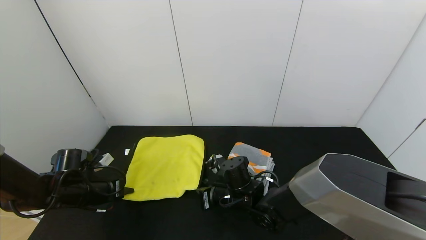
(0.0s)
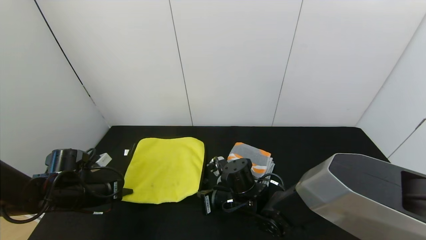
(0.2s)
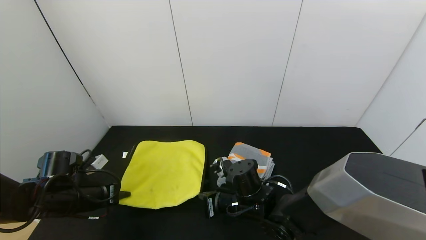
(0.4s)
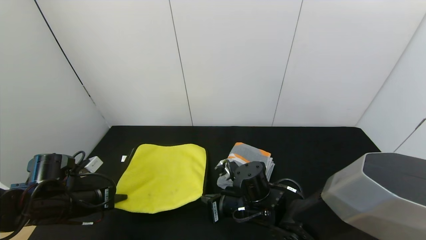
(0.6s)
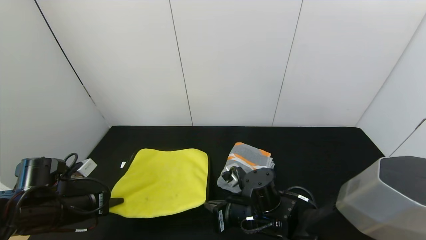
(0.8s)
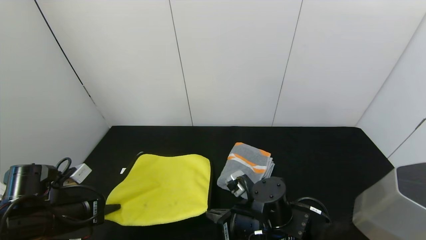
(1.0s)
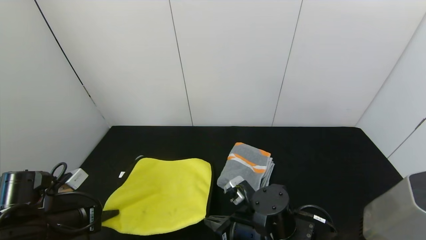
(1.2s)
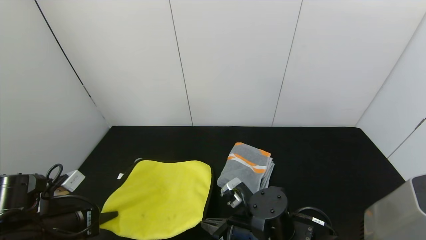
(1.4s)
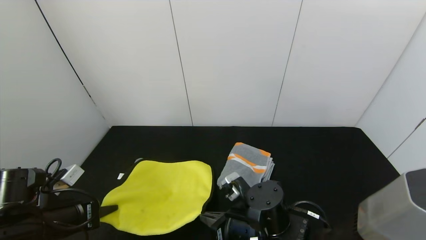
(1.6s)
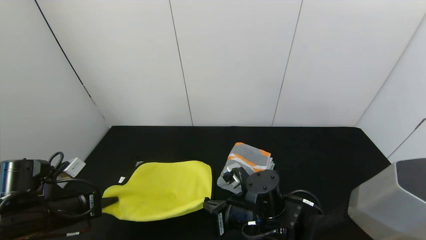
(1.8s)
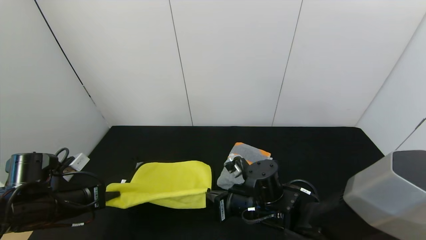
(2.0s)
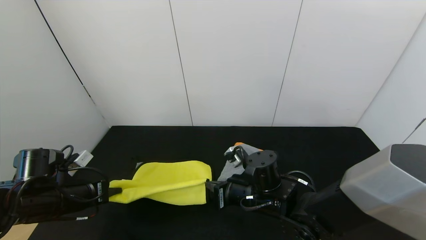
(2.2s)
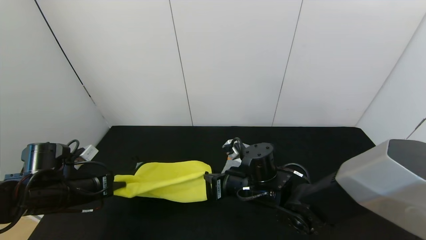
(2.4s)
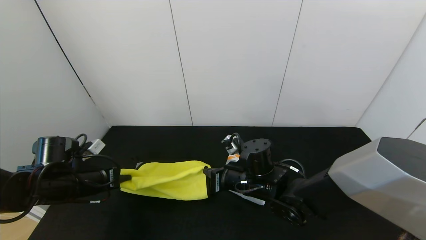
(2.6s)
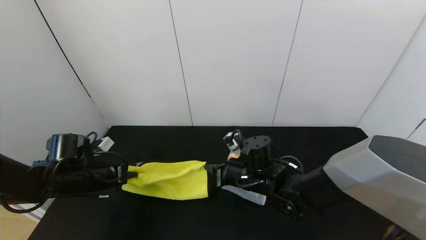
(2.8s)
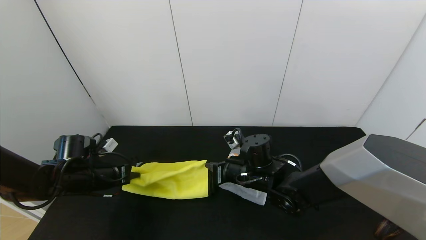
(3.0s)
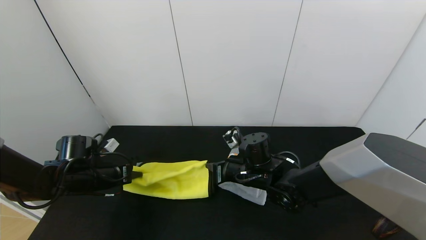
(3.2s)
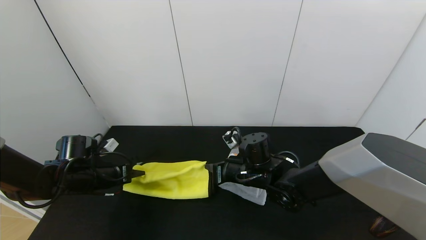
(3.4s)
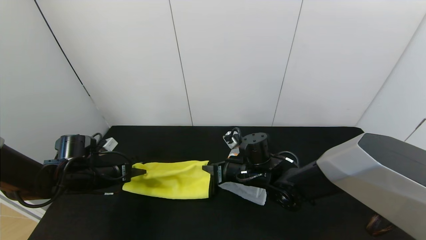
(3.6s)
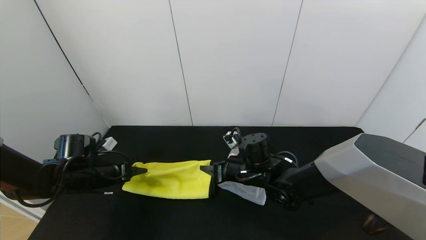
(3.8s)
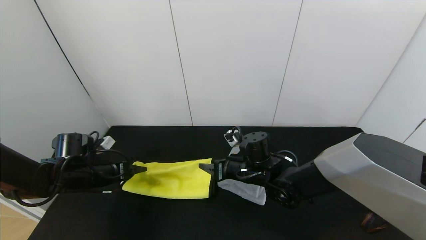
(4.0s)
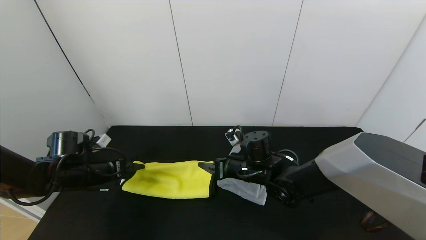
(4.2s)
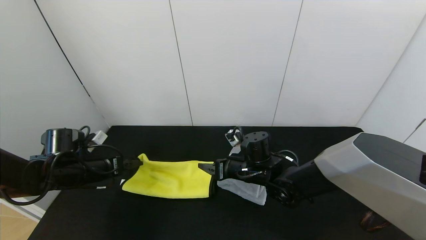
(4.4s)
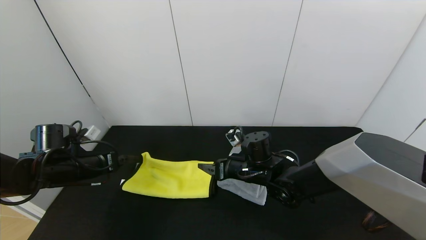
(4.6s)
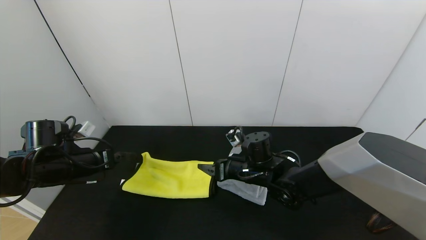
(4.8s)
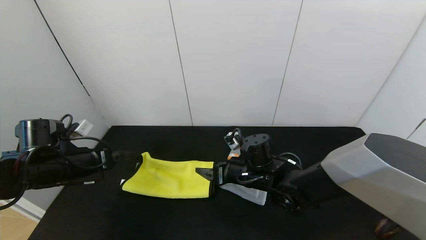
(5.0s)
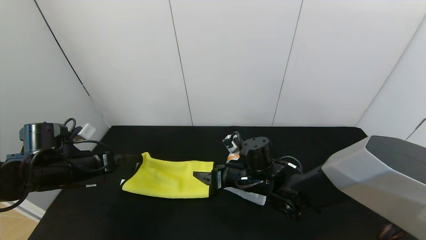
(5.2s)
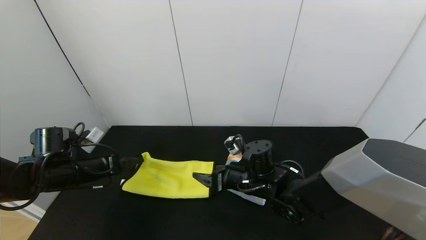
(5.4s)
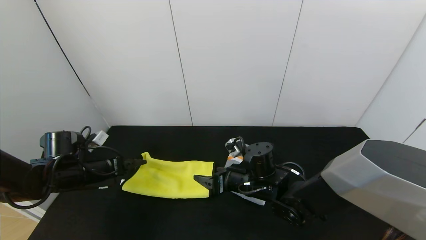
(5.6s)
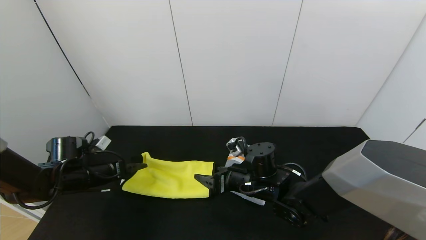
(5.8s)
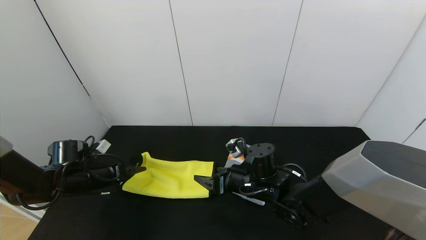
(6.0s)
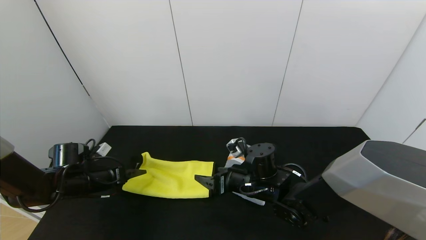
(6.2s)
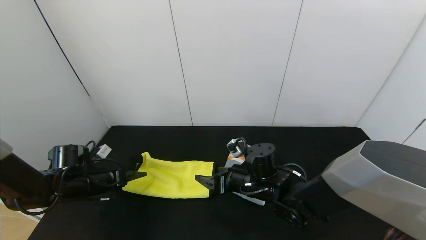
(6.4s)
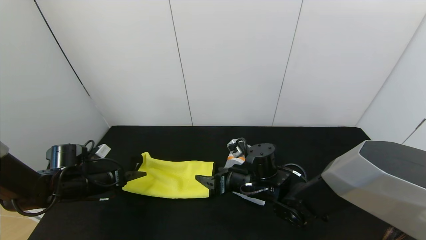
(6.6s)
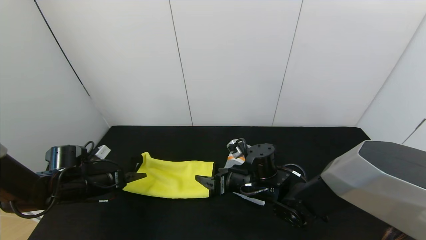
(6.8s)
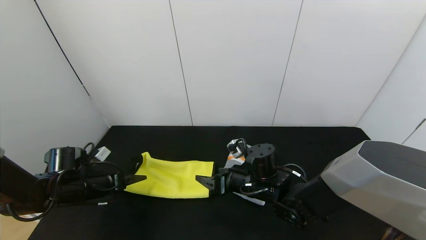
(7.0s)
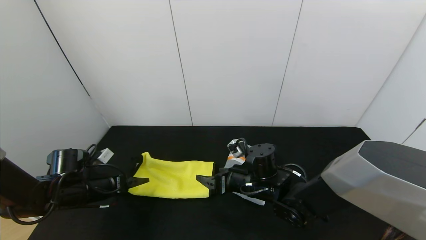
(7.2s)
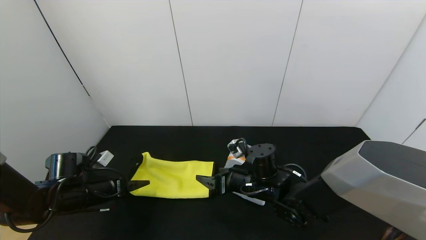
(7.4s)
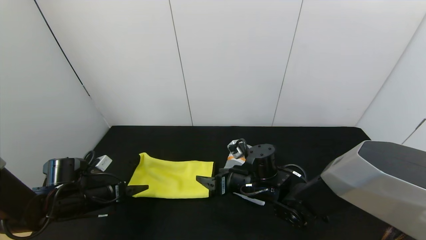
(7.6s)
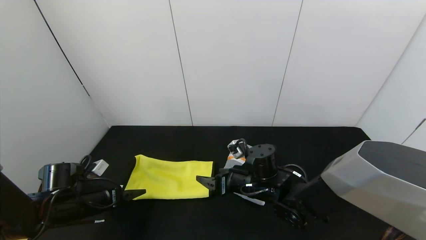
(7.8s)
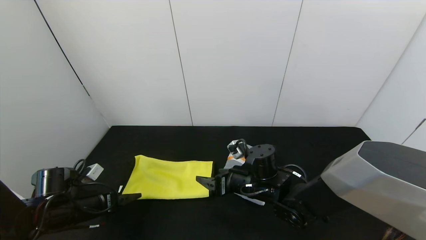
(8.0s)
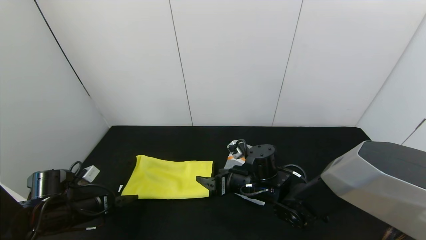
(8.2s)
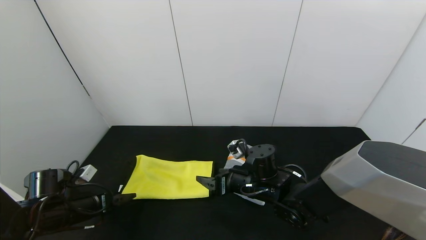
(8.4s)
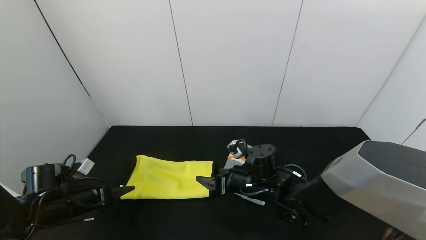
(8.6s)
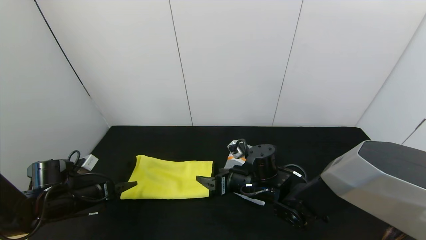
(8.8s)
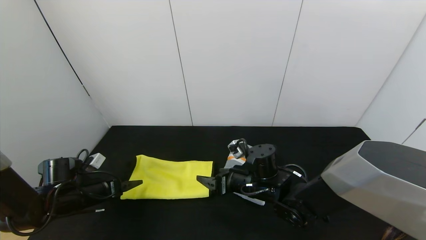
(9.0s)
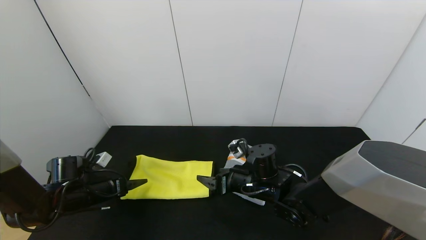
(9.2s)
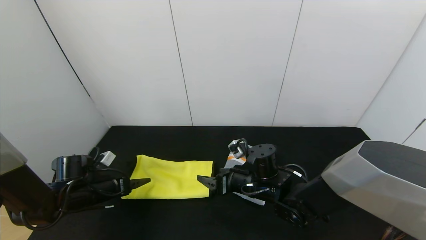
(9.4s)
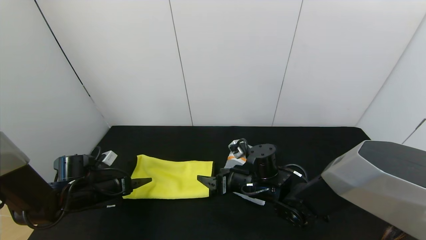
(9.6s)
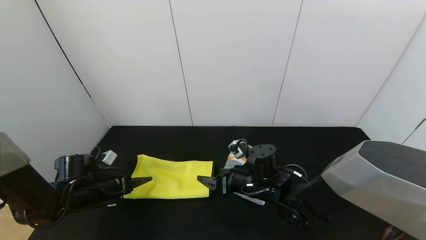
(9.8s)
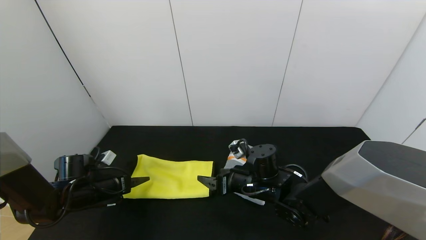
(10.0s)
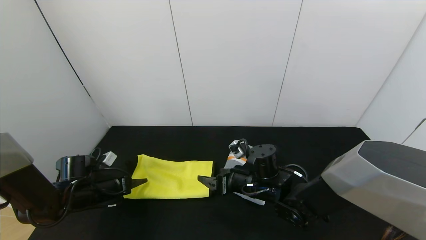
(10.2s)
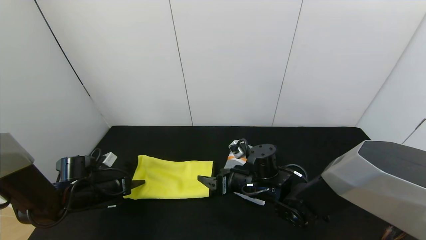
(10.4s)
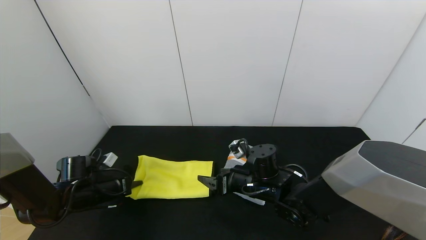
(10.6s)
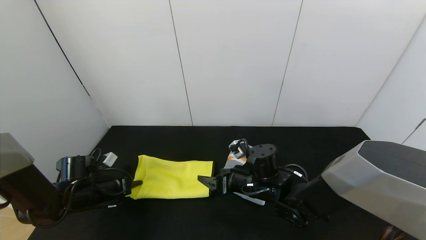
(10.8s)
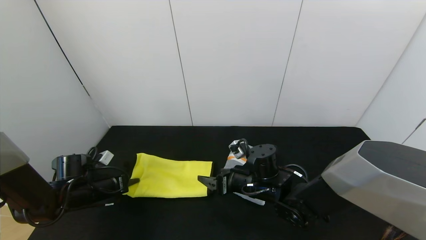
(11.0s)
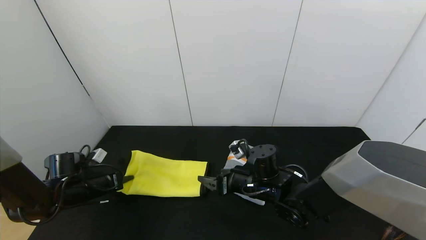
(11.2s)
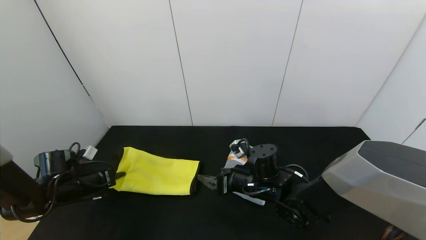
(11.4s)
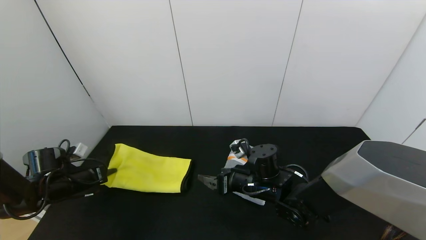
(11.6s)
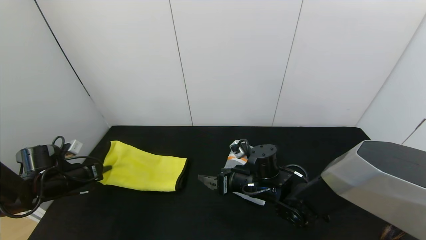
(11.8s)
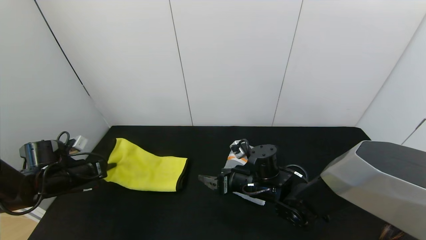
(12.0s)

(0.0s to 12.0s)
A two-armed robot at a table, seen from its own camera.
Task of the whole recording: Use the gripper to fold the yellow towel and grey towel in half twice,then put the yellow towel on the grey towel.
Step, 0.0s - 4.4s: Fold the yellow towel from right to left with right gripper.
Step, 0.0s - 4.4s: Fold the yellow towel upwards with the right gripper.
0.0s - 1.6s: The right gripper heads backward, covering about 10 cm. The left gripper travels backward and upward by some 10 cm.
1.6s - 3.0s: The two grippers go about 10 cm forward.
3.0s - 4.4s: The left gripper opens. The right gripper opens its fingers.
4.4s - 6.0s: There are only small adjustments of the grippers.
6.0s - 7.6s: The left gripper changes place by some 5 cm.
7.6s - 9.0s: The grippers stay close to where they were, moving slightly.
9.0s - 10.4s: The left gripper closes up.
10.4s - 12.0s: The left gripper is displaced to the left by some 5 cm, and closes its fingers.

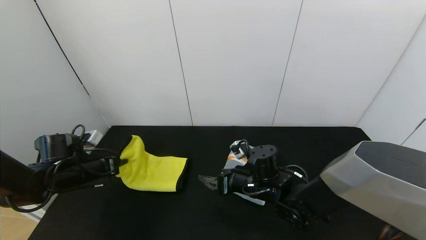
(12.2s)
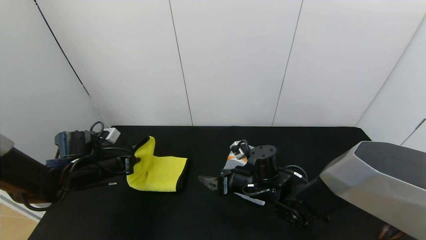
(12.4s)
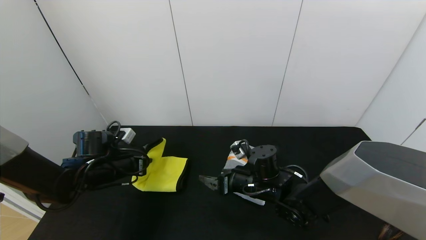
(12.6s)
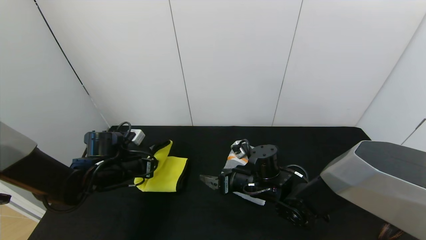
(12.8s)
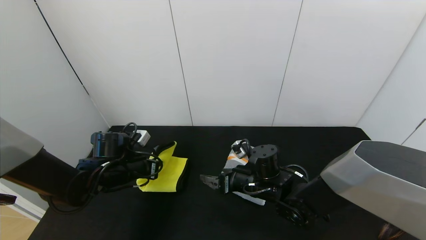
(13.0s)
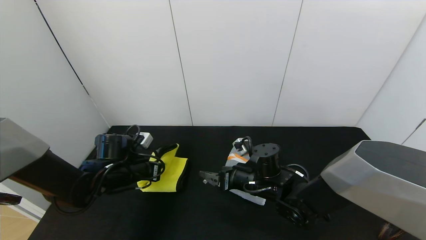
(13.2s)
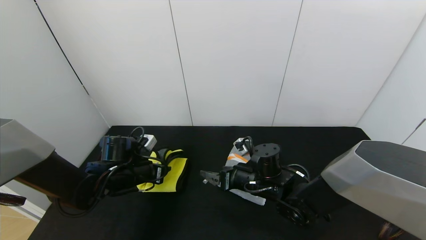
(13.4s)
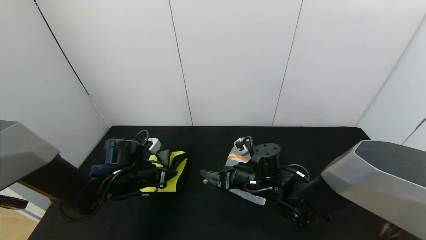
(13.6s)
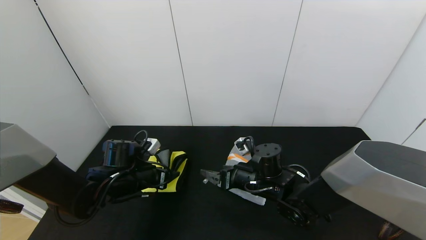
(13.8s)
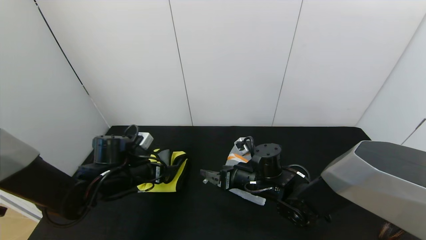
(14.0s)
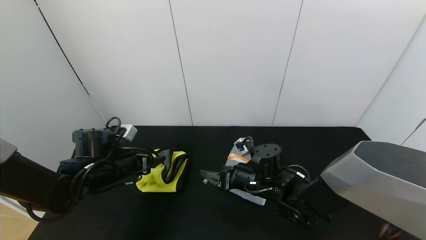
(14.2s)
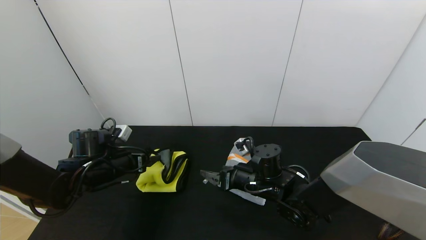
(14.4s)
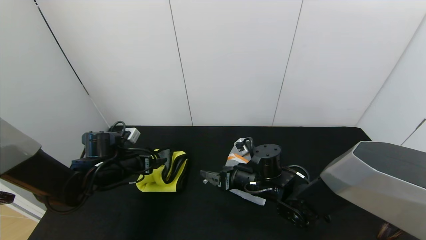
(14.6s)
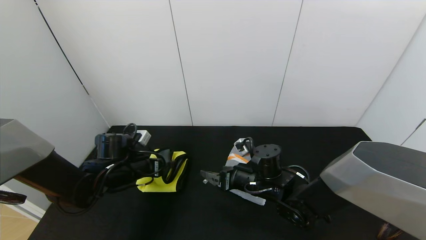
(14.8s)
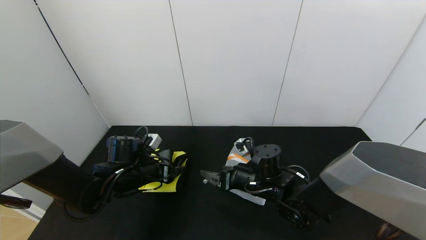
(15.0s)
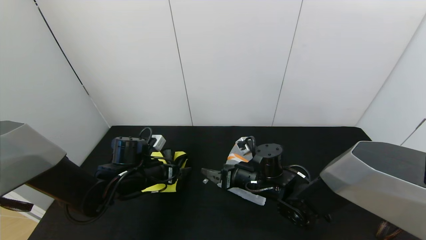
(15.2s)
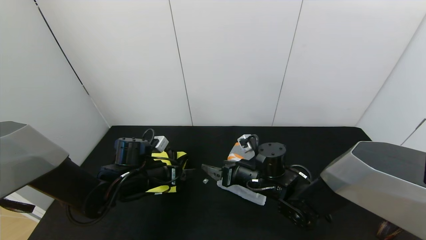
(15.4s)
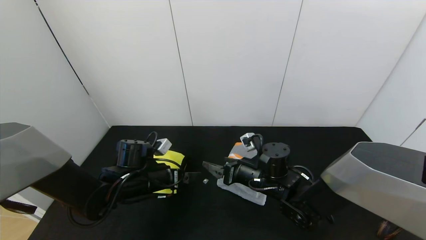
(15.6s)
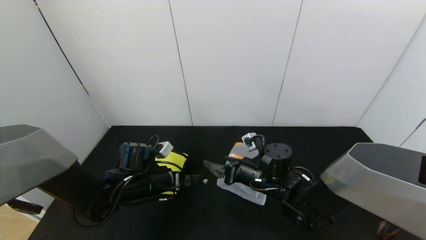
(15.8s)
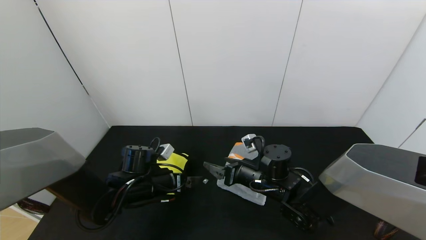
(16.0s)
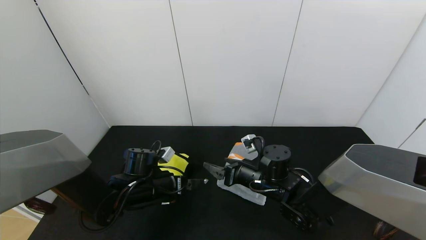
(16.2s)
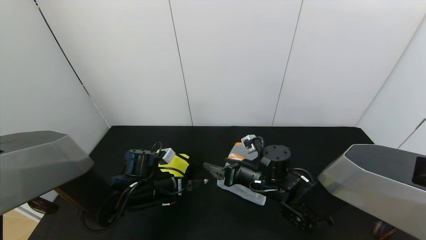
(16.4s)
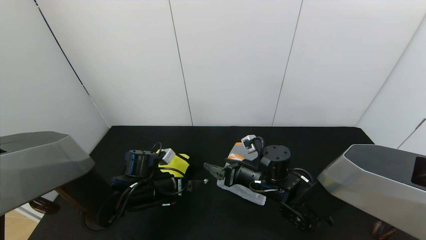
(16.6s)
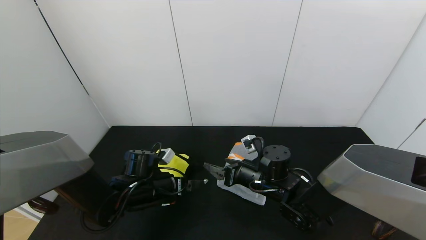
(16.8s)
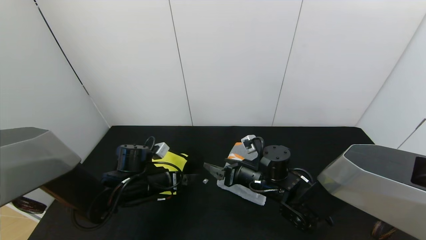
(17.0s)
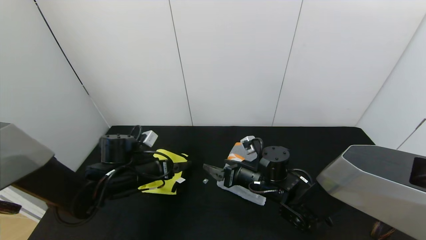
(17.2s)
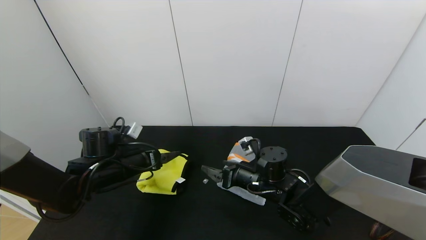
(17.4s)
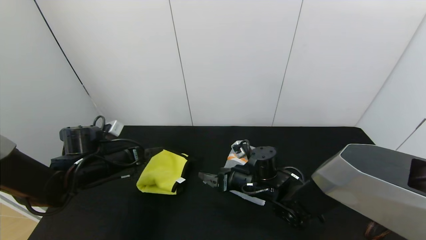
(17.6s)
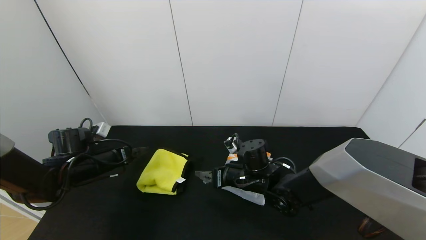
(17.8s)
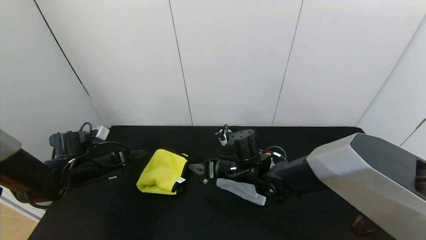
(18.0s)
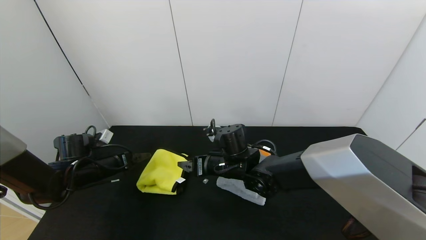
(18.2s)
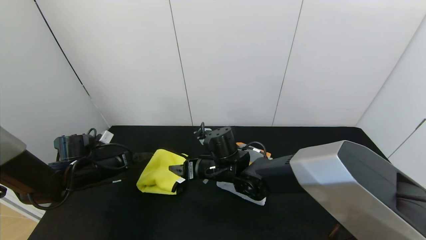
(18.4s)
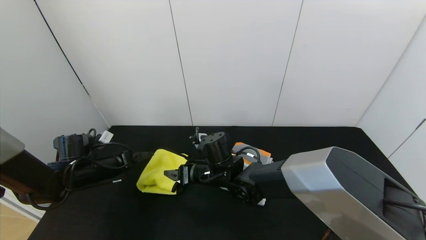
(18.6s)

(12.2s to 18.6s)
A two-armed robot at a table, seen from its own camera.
Task of the whole recording: Use the gripper to fold the yellow towel and grey towel in half twice,then put the yellow towel on the grey towel.
Step, 14.2s - 17.2s: Press the yellow towel with the left gripper.
12.2s - 13.8s: The left gripper travels to the right by approximately 15 cm, and opens its fingers.
13.8s - 15.4s: The left gripper travels to the left and back again, about 5 cm each way.
15.4s - 17.0s: The grippers move only a little.
17.0s - 18.6s: The two grippers go about 10 cm to the left.
